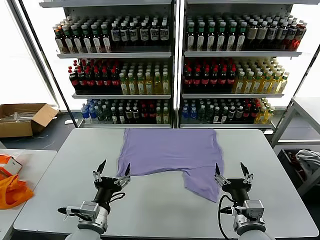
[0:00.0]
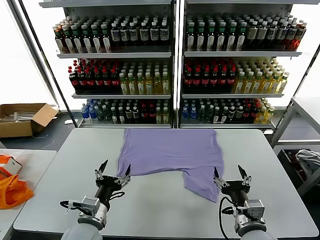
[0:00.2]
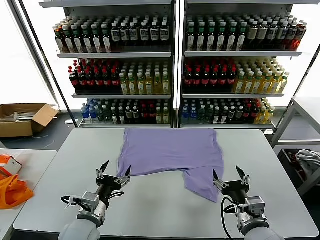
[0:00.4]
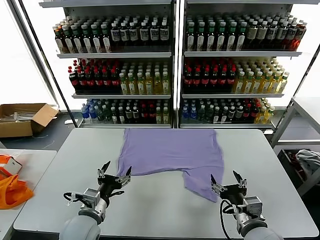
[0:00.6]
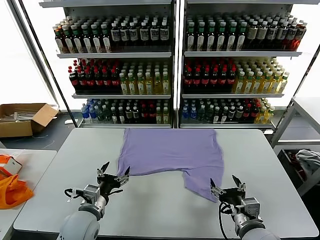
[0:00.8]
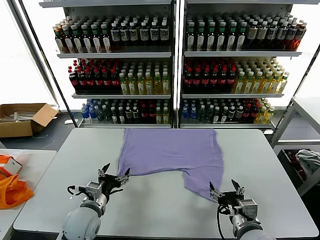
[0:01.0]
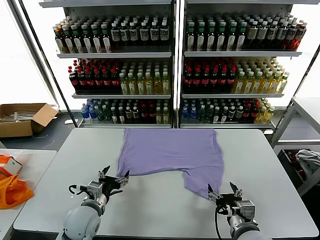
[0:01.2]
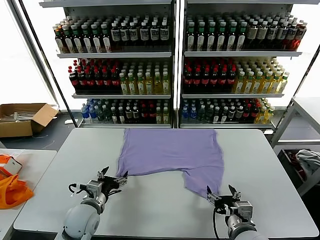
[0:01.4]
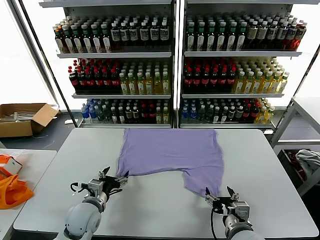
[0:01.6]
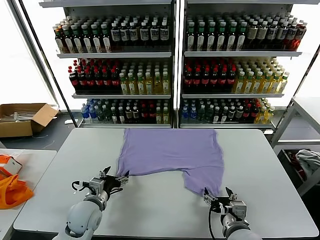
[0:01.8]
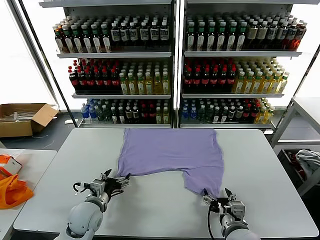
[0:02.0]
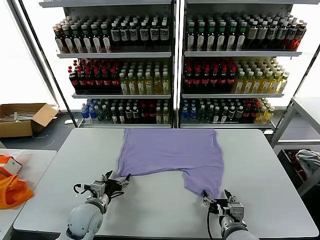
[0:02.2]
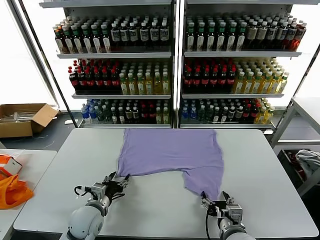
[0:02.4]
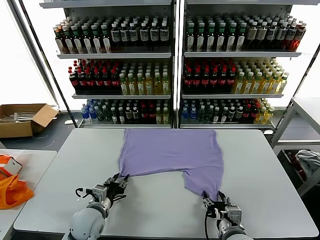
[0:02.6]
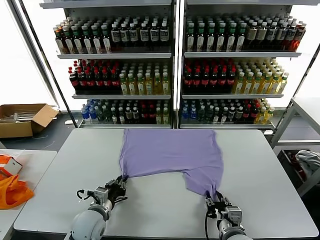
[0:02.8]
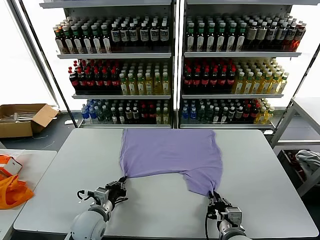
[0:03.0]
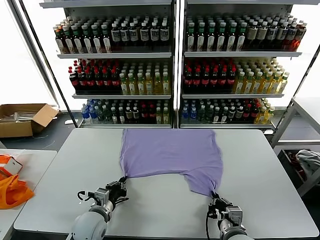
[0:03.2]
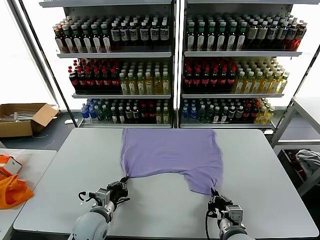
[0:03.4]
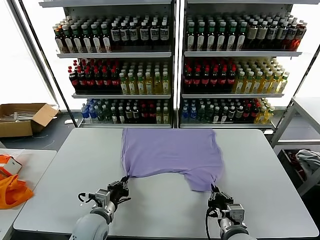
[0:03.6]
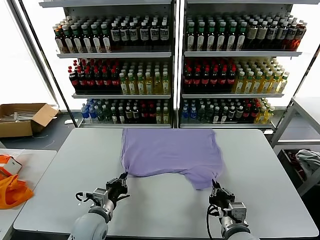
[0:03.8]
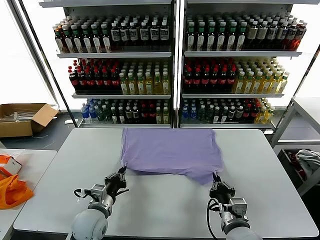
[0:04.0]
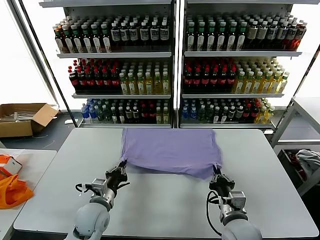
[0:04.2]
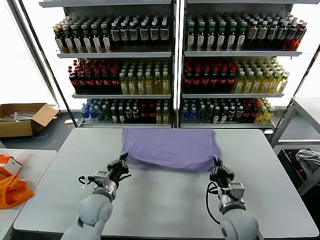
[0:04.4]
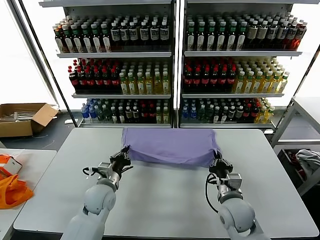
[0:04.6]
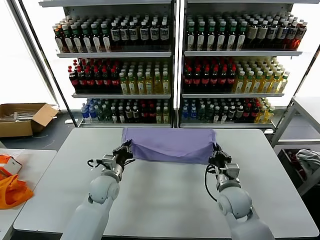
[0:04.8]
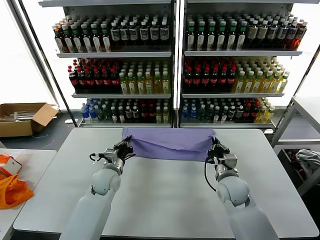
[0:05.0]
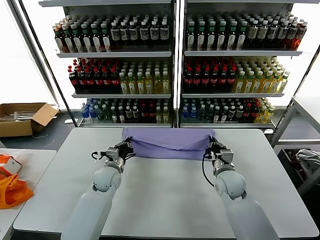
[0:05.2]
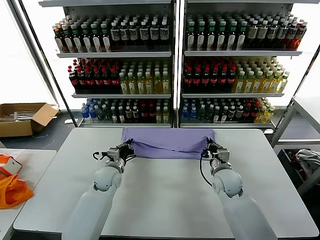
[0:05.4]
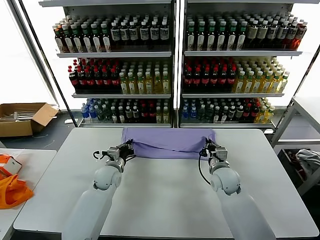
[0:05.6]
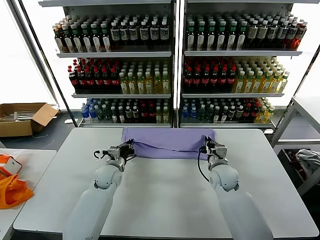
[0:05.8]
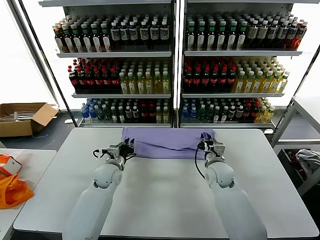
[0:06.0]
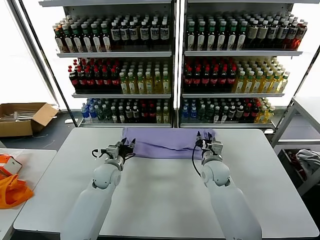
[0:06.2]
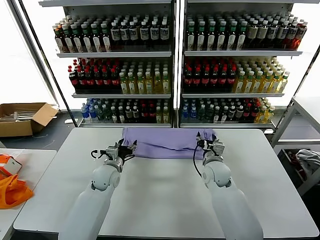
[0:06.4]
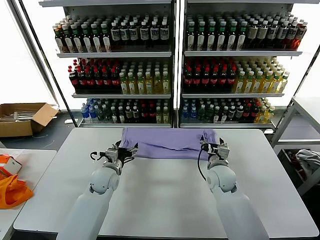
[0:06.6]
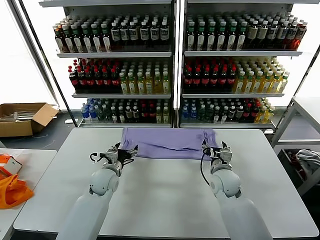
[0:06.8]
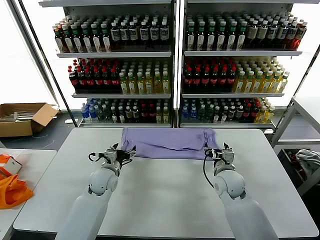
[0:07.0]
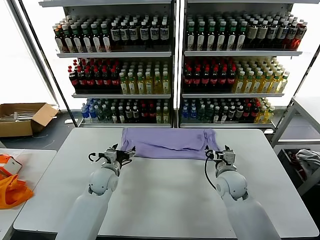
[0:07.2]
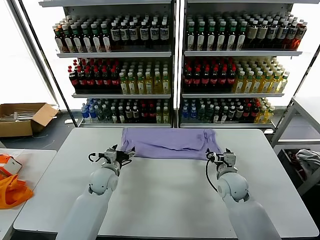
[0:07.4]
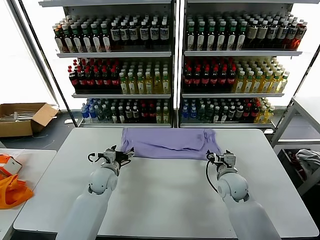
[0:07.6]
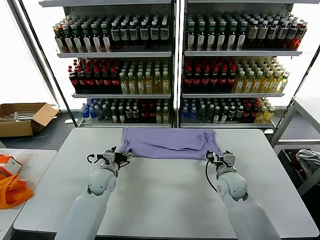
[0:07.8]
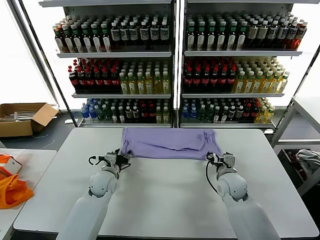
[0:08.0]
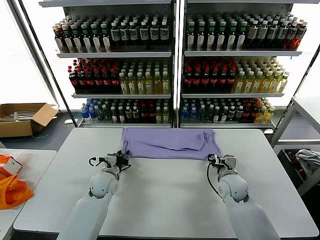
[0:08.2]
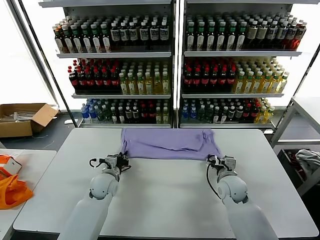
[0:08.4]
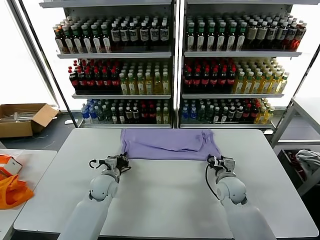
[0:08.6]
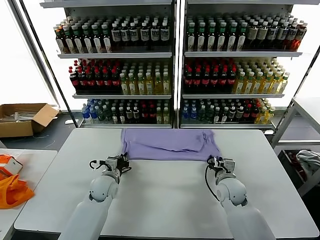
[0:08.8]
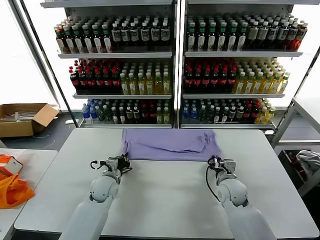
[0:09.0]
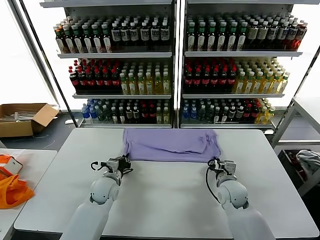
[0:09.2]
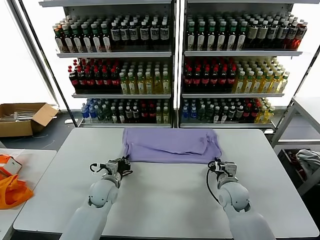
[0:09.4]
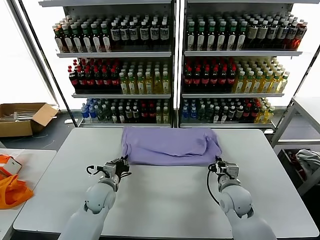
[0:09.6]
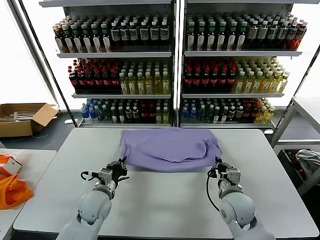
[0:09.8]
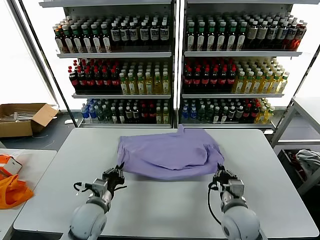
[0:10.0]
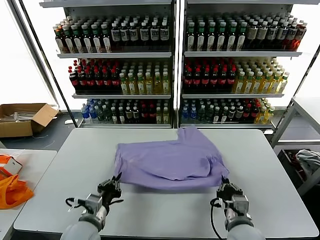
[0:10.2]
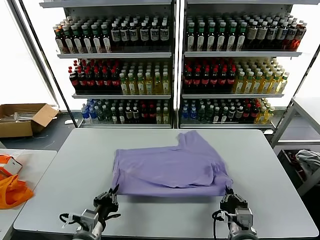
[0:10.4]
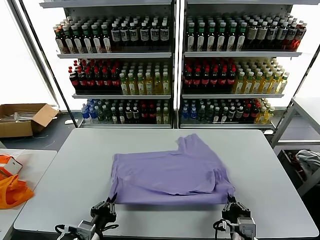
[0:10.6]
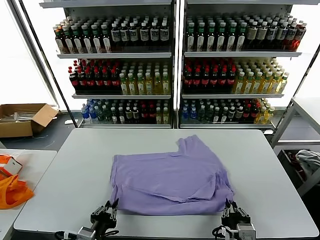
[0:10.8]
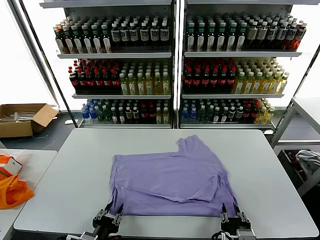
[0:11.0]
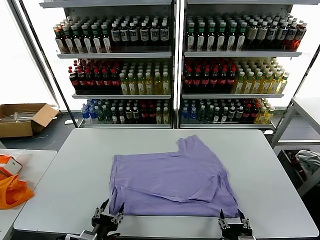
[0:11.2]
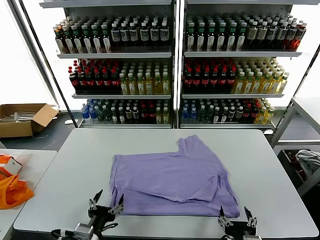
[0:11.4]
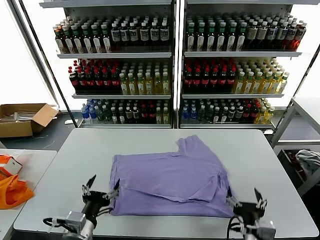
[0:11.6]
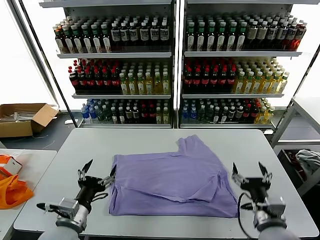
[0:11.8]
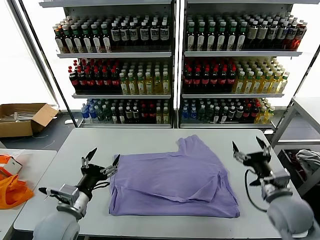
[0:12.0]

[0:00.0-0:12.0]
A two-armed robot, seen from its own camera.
Task of the whole recording: fold and organize the clothes.
Step, 0:00.0 to 0:02.8: use both grippers simultaneously to clamp the lower edge of the clothing fabric.
Step, 0:03.2 to 0:05.8: use both grippers to drag the lower edge of the fabric forward and fold it over the upper edge.
Step, 0:06.0 to 0:11.0: Drag the clothes downward with both gripper.
0:01.6 to 0:03.0: The left gripper closes its fingers; the right gripper closes.
0:03.0 to 0:04.4: The left gripper goes about 5 cm forward; the right gripper heads forward, covering approximately 10 cm.
0:04.4 to 0:06.0: The grippers both shift forward by about 15 cm. The right gripper opens.
0:06.0 to 0:07.6: The right gripper changes place by some 5 cm, and opens. Meanwhile the left gripper opens up.
0:07.6 to 0:09.0: The right gripper closes. The left gripper closes its fingers.
0:09.0 to 0:10.4: Both grippers move backward, some 25 cm.
0:10.4 to 0:12.0: The right gripper travels forward, to the right and upward by some 25 cm, and opens up. Meanwhile the left gripper heads upward and forward, covering roughly 10 cm, and opens its fingers.

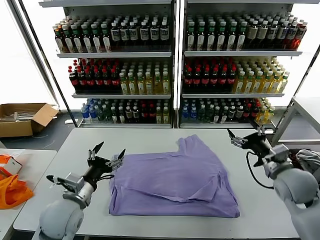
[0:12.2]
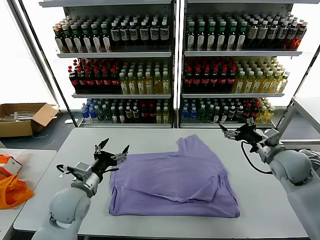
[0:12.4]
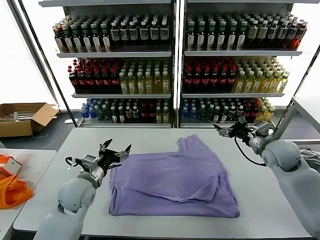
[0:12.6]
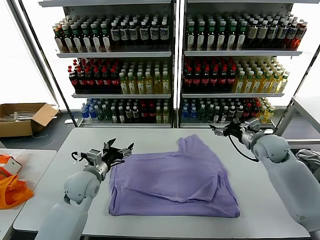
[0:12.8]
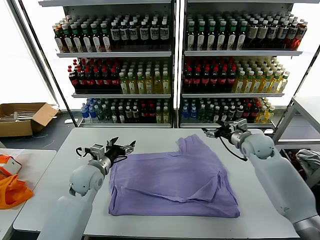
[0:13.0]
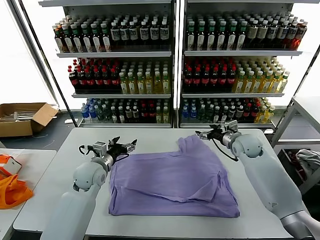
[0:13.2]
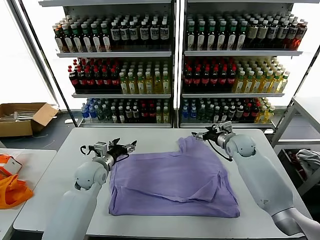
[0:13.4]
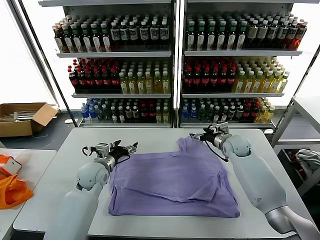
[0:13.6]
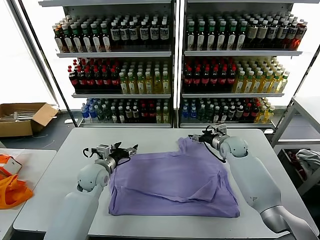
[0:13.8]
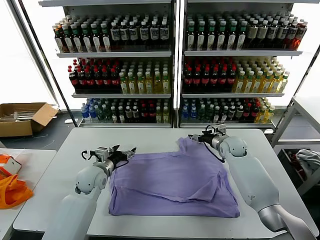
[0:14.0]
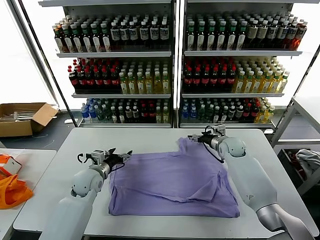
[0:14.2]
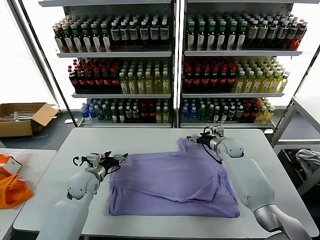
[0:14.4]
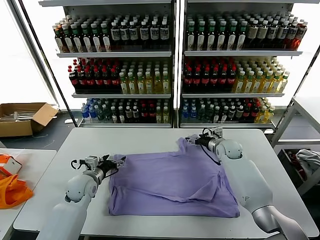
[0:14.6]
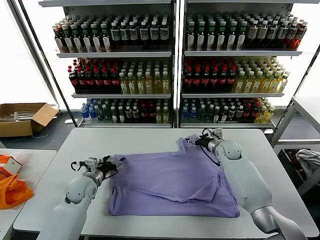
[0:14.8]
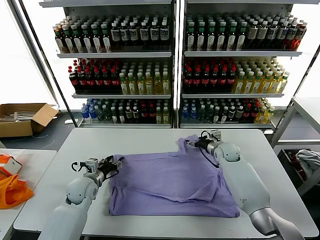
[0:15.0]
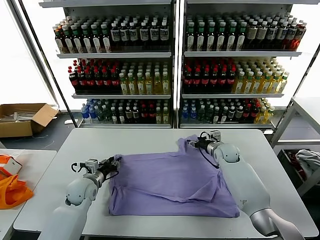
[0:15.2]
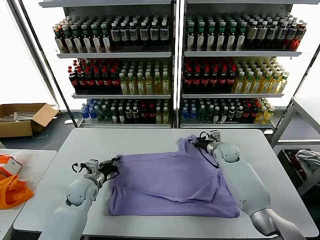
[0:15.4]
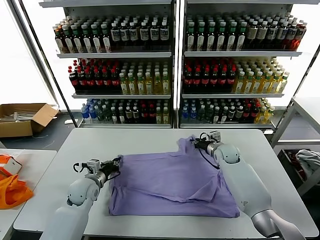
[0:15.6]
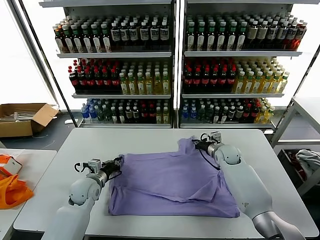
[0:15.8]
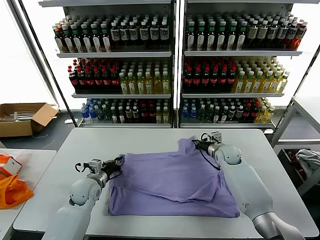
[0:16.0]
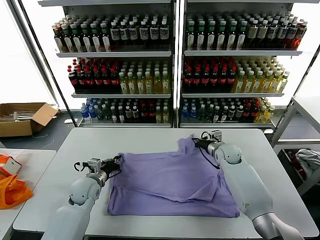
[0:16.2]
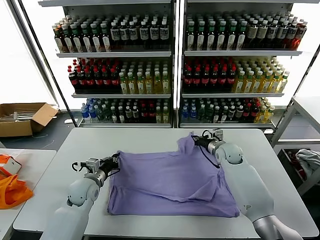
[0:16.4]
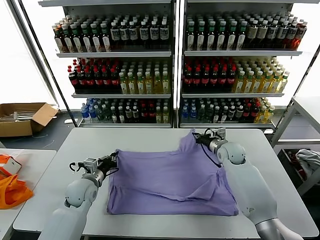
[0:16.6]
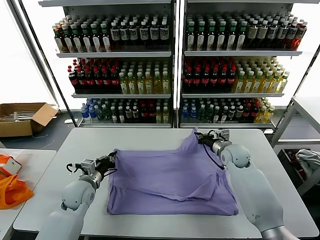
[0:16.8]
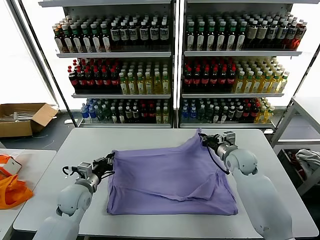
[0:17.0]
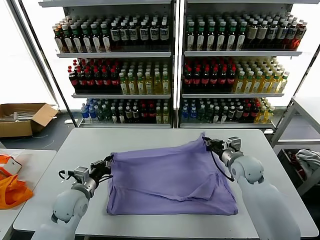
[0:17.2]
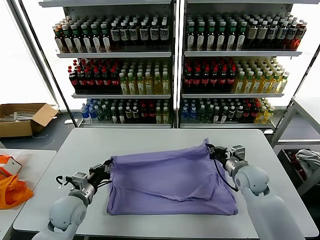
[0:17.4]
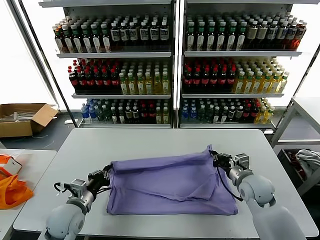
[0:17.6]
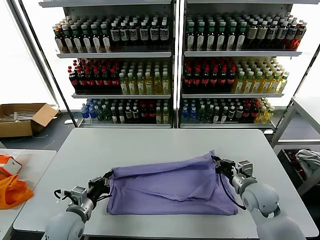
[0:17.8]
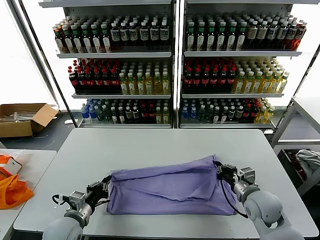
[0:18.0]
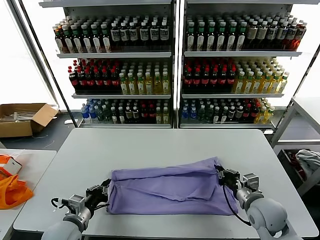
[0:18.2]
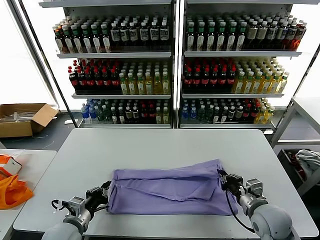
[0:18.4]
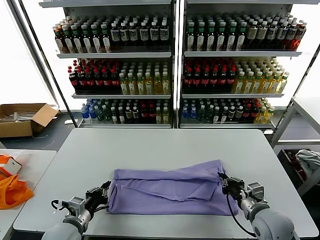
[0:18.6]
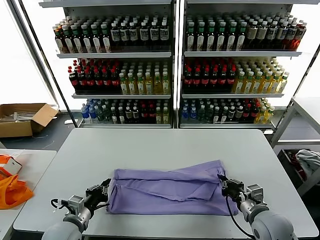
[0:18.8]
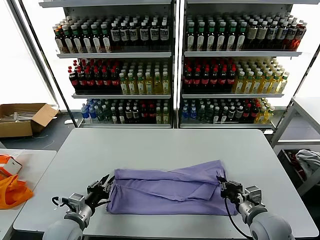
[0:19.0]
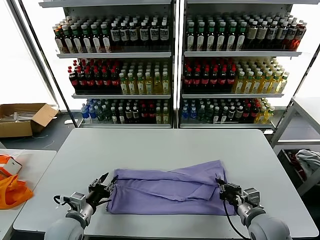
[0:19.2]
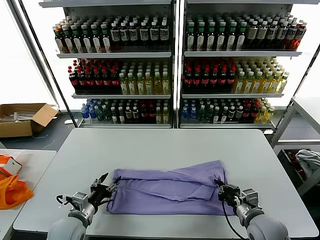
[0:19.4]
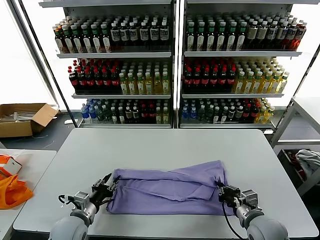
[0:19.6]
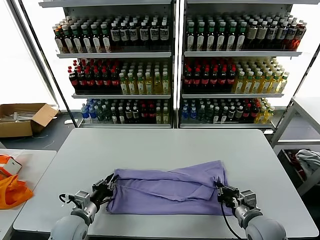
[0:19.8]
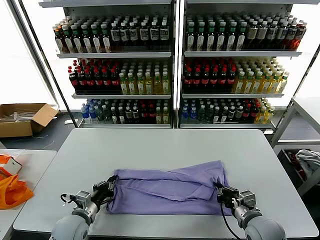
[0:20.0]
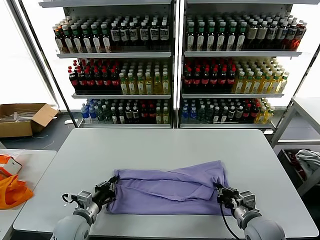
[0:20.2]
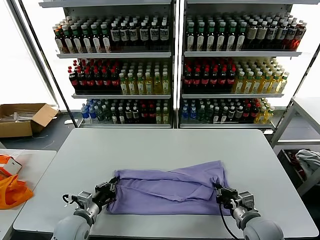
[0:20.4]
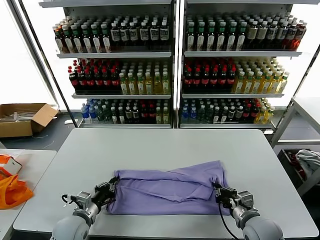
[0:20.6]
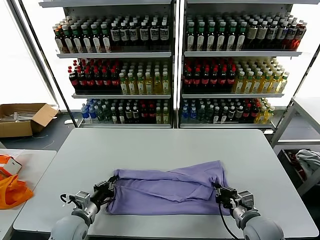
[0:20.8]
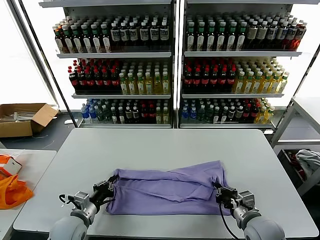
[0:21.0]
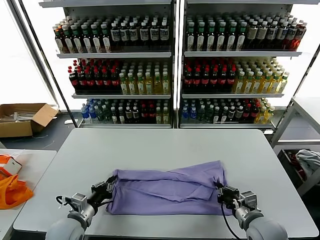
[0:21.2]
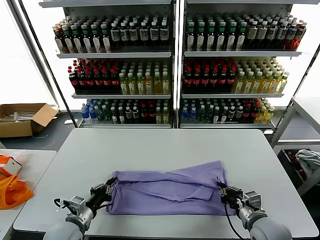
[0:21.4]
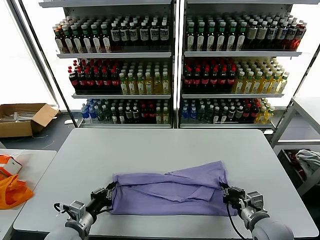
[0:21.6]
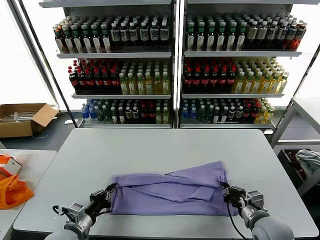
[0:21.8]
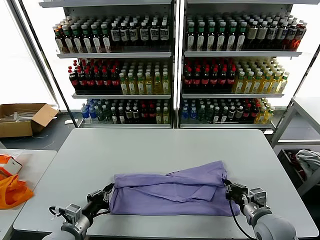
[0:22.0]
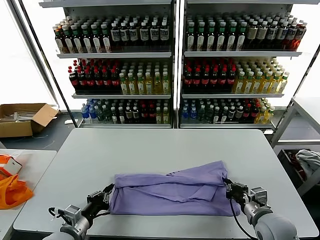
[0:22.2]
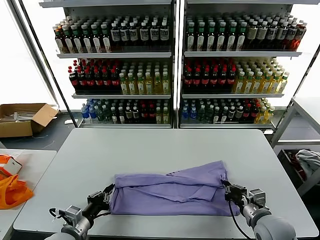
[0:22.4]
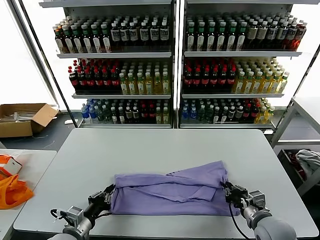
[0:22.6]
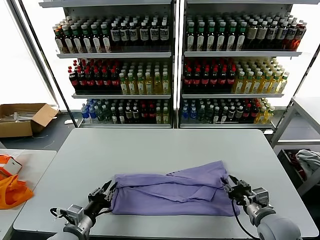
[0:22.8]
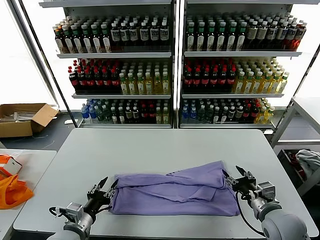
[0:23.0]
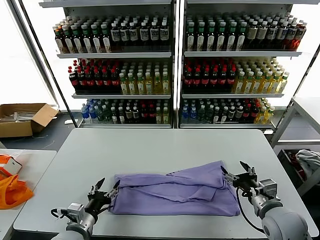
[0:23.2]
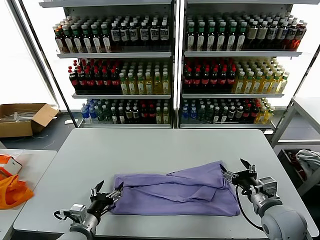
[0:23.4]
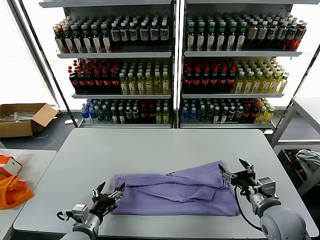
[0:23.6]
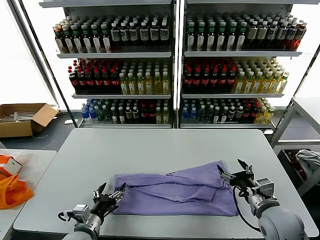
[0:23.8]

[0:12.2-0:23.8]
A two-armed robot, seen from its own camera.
Task of the whole recording: fold and organize the clothes.
Step, 0:12.2 to 0:15.8: use both grippers simultaneously to clamp the upper edge of the clothing fabric.
Step, 0:16.0 to 0:22.8: use both grippers to drag the upper edge of the fabric backward and fold it over the lower edge.
0:12.2 to 0:13.6: The right gripper goes about 20 cm forward, downward and to the left. Meanwhile the left gripper is displaced forward by some 15 cm.
0:13.6 to 0:15.0: The left gripper ends up approximately 5 cm from where it was, and closes up.
0:15.0 to 0:16.6: The left gripper closes its fingers. Meanwhile the right gripper changes place by roughly 5 cm, and closes up.
0:16.6 to 0:18.0: The left gripper heads backward, covering some 15 cm. Meanwhile the right gripper heads backward, covering some 20 cm.
0:18.0 to 0:19.4: The left gripper opens. Meanwhile the right gripper travels backward by about 5 cm.
0:19.4 to 0:21.0: The left gripper closes up.
0:21.0 to 0:22.4: The left gripper heads backward, covering roughly 5 cm.
0:22.4 to 0:23.8: The left gripper opens. The right gripper moves upward, roughly 5 cm, and opens up.
